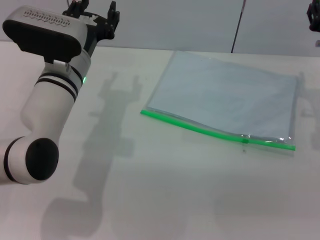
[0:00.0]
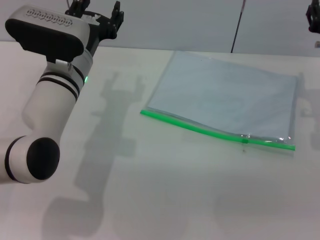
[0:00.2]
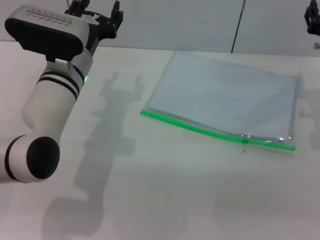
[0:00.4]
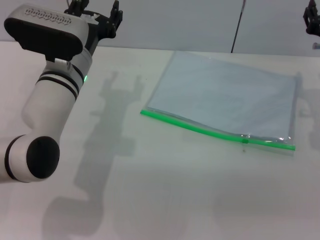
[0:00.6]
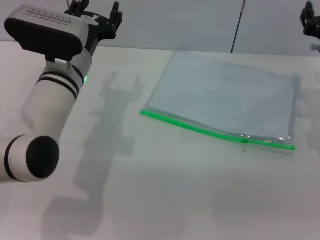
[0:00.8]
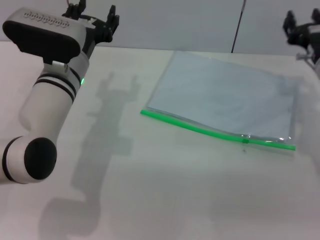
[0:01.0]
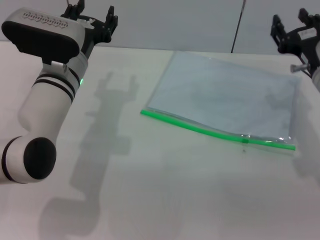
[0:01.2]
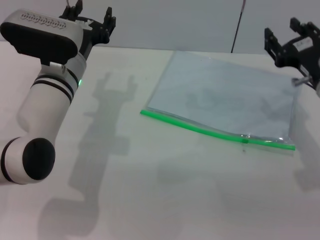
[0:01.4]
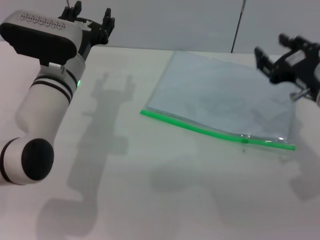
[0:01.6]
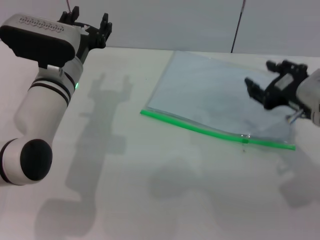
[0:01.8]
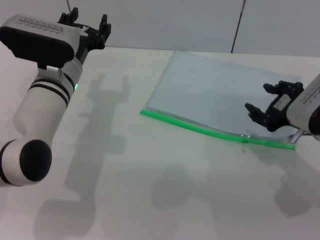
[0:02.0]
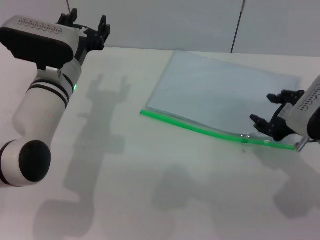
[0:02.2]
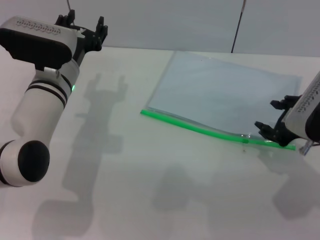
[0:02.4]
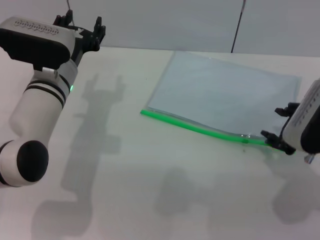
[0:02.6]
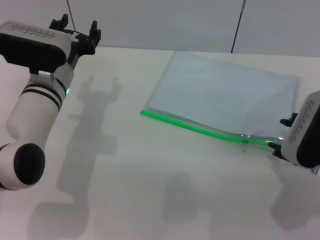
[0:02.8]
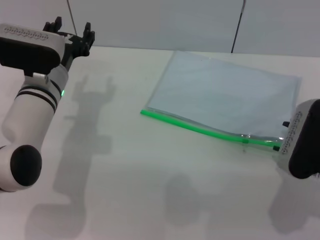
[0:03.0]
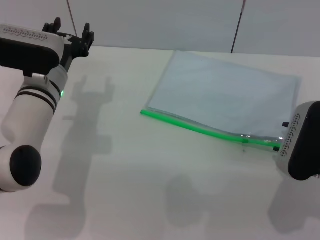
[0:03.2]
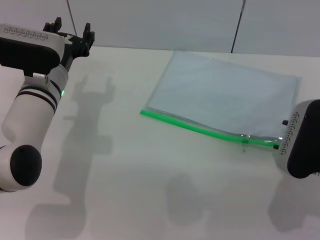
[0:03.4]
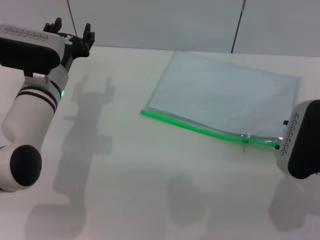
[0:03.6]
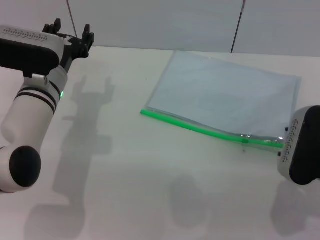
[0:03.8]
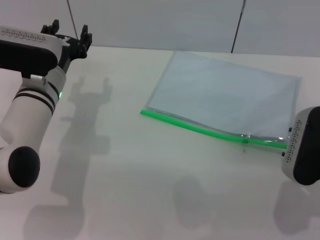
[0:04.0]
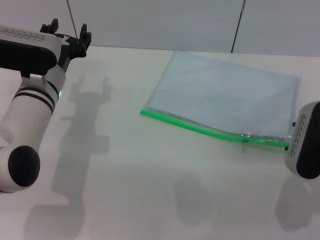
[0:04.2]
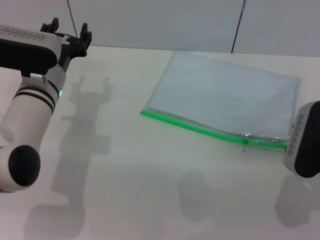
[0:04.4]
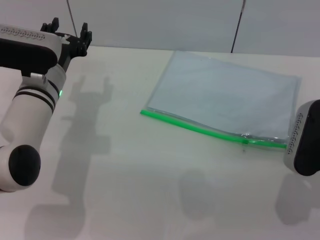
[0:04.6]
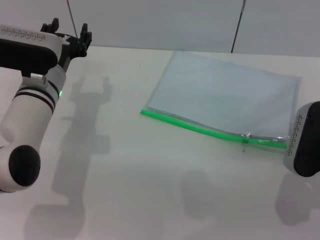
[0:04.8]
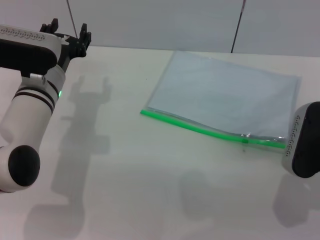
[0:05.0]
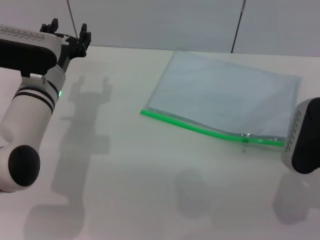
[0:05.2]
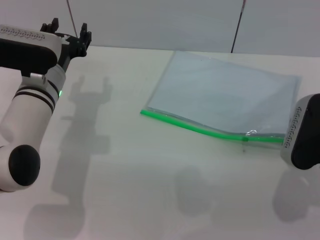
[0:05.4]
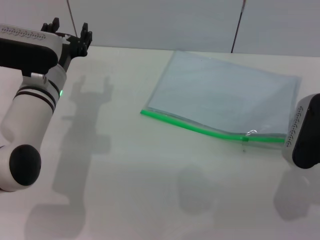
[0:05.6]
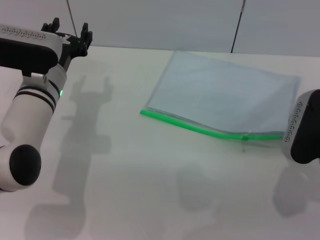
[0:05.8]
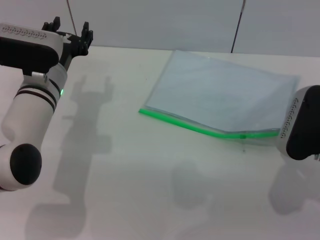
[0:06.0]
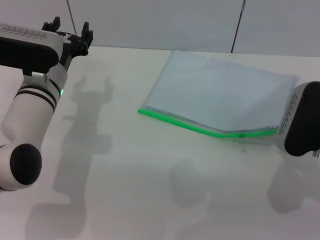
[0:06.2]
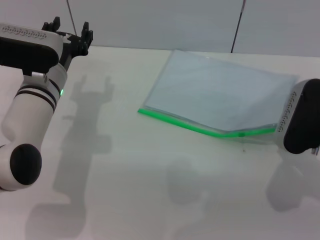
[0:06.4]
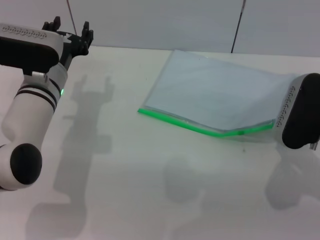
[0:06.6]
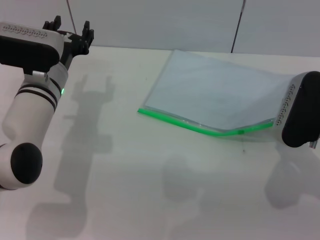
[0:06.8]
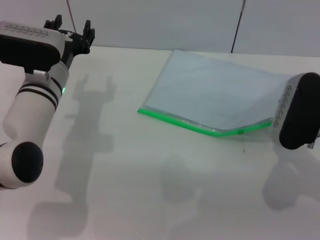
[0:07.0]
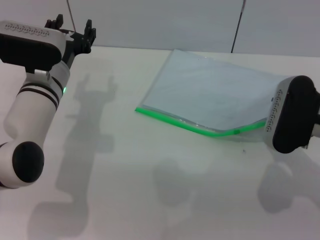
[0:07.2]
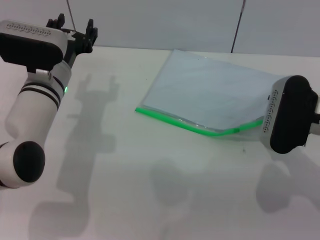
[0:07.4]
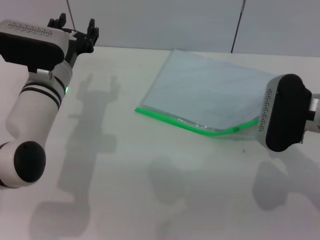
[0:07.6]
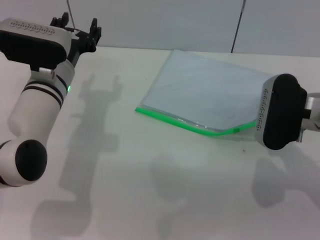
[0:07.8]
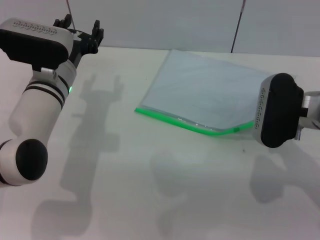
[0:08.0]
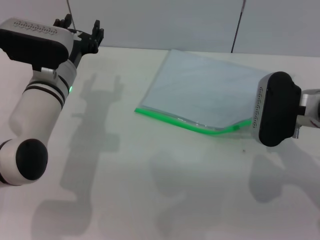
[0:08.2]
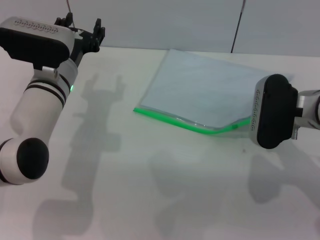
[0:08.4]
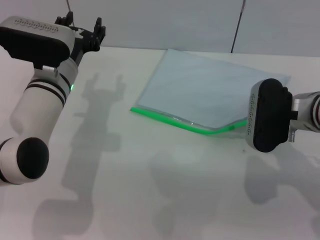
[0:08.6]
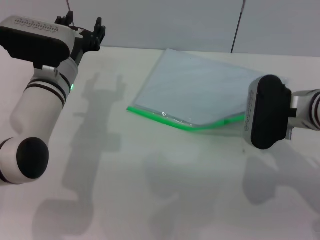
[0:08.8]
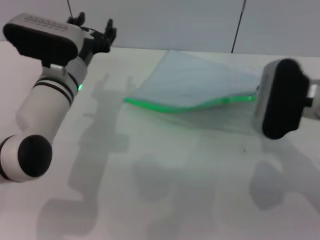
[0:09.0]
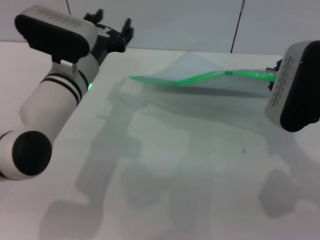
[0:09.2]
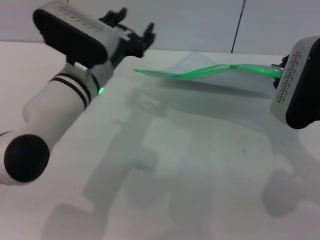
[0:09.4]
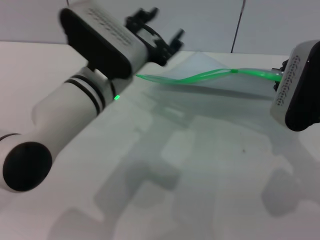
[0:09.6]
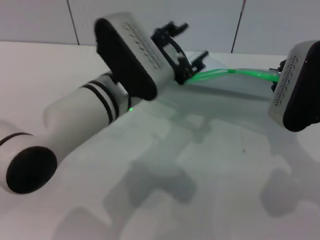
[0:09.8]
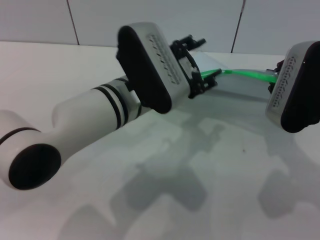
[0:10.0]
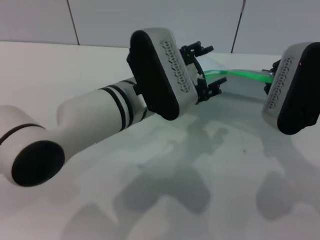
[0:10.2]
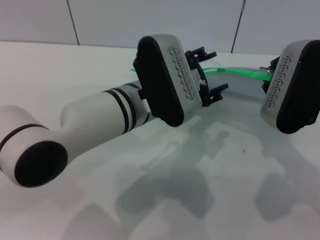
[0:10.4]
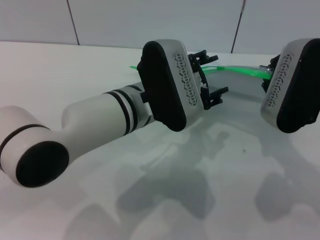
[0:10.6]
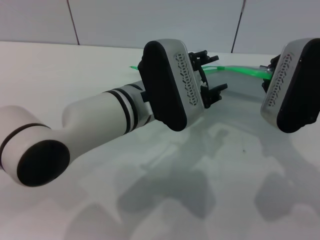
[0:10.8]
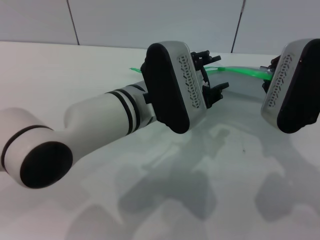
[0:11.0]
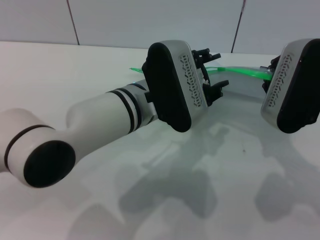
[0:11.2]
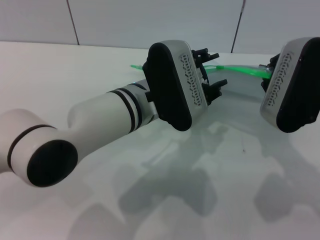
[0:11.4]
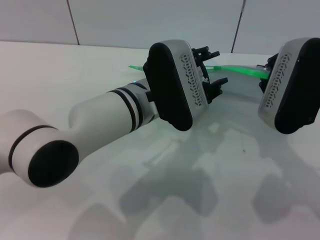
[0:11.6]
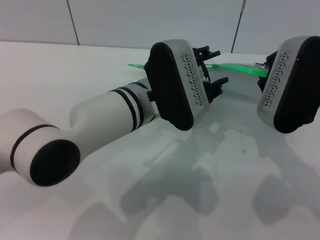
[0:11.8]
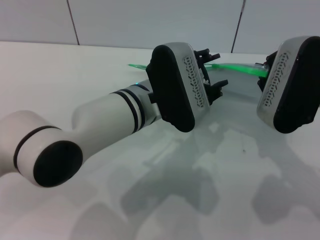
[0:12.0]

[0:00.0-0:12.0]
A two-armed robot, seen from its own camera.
Step, 0:00.0 to 0:09.8: Pick up the transparent plastic bag with the right gripper.
0:00.0 to 0:01.6: The right gripper heads backward, covering some 10 cm.
0:03.0 to 0:07.6: The grippers move only a little.
0:07.6 to 0:09.0: The right gripper closes up.
0:09.0 to 0:10.4: The left gripper shifts some 10 cm to the right and backward.
0:10.4 to 0:12.0: The grippers make only small movements.

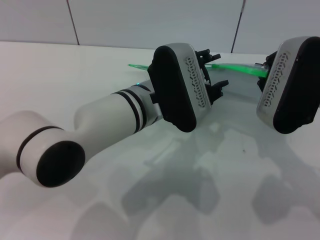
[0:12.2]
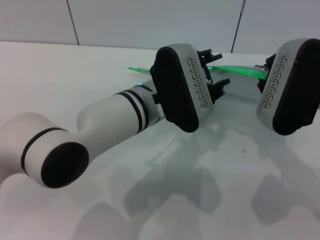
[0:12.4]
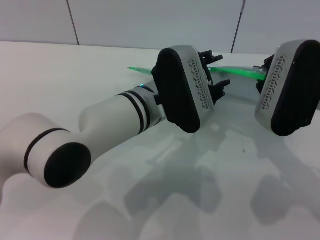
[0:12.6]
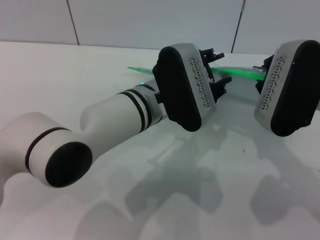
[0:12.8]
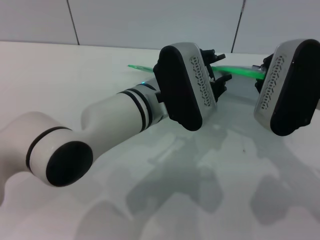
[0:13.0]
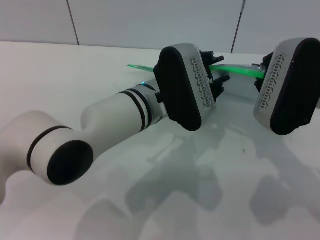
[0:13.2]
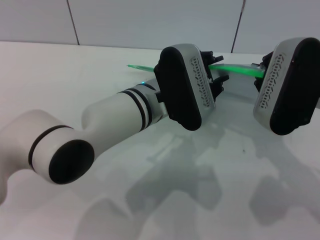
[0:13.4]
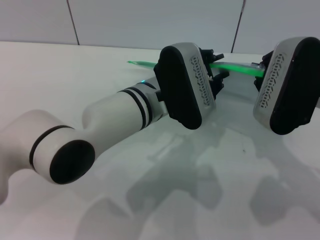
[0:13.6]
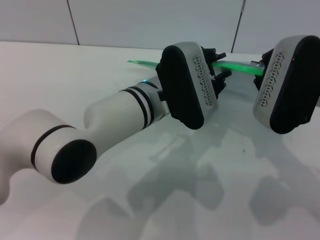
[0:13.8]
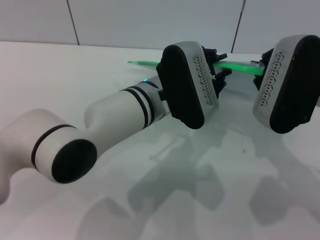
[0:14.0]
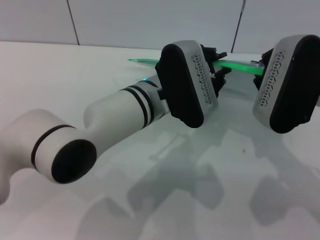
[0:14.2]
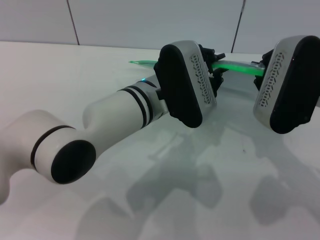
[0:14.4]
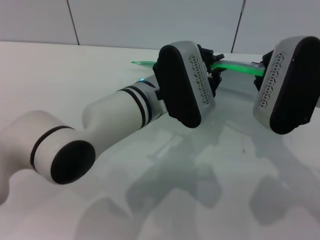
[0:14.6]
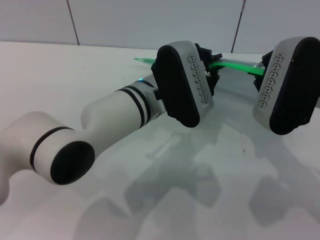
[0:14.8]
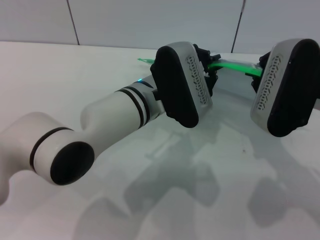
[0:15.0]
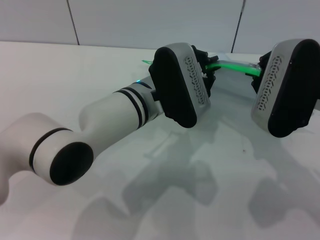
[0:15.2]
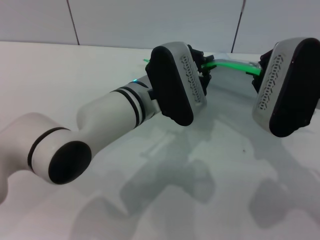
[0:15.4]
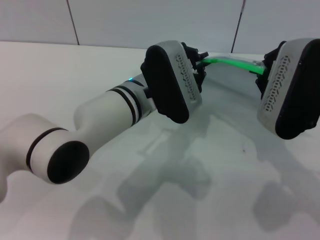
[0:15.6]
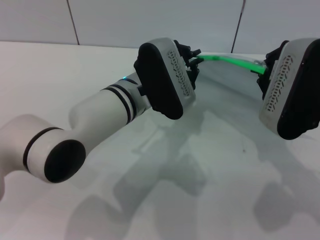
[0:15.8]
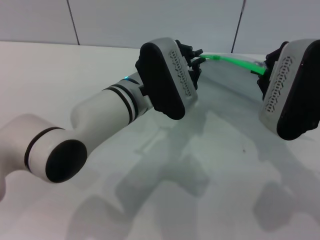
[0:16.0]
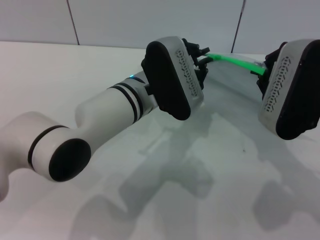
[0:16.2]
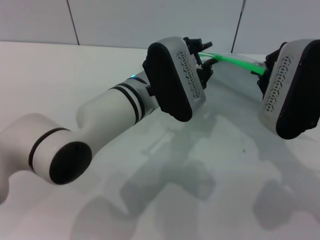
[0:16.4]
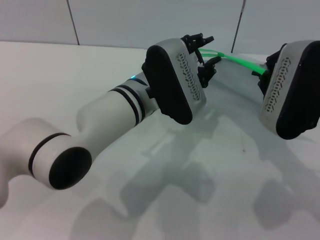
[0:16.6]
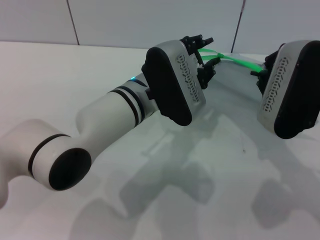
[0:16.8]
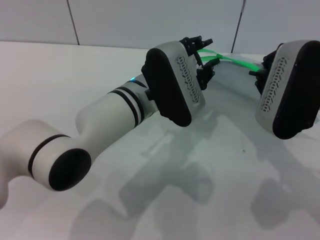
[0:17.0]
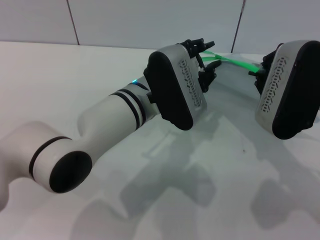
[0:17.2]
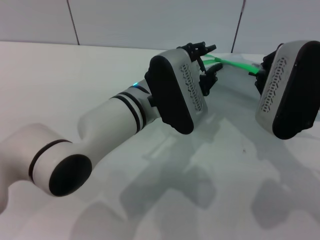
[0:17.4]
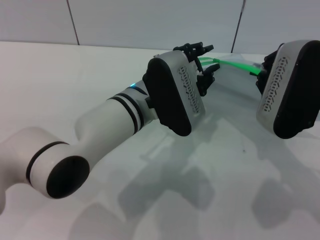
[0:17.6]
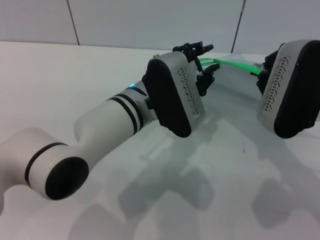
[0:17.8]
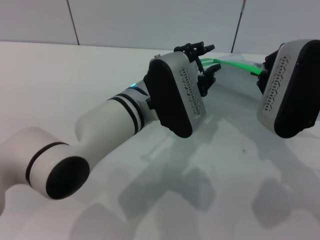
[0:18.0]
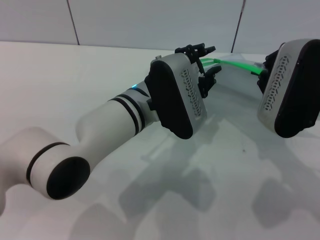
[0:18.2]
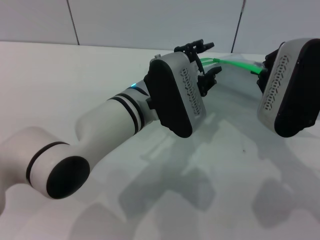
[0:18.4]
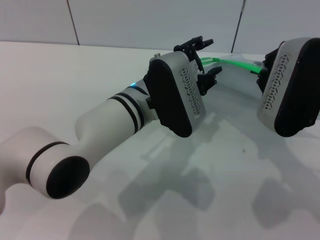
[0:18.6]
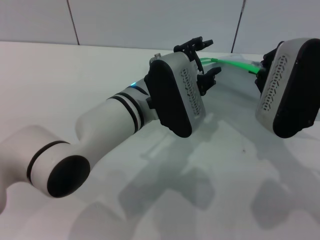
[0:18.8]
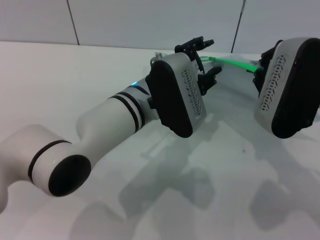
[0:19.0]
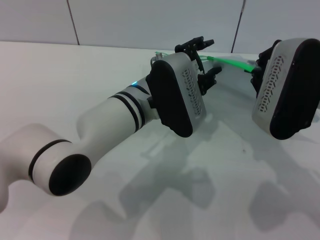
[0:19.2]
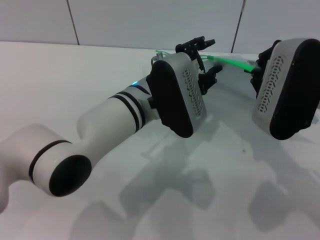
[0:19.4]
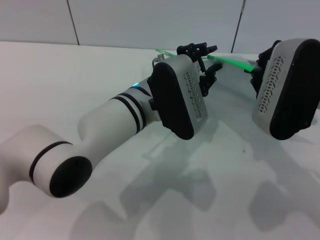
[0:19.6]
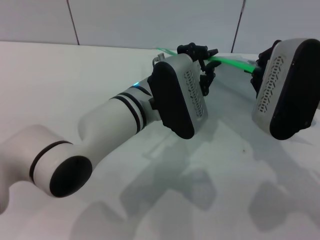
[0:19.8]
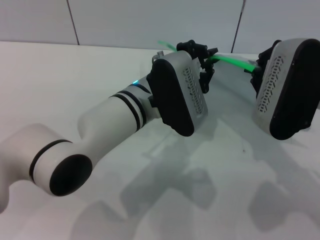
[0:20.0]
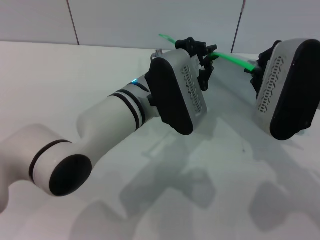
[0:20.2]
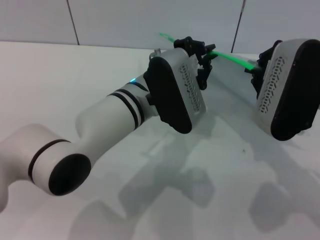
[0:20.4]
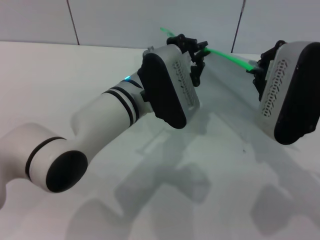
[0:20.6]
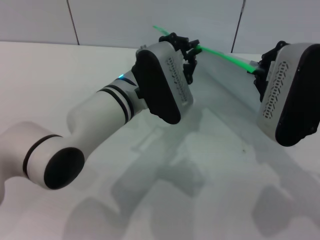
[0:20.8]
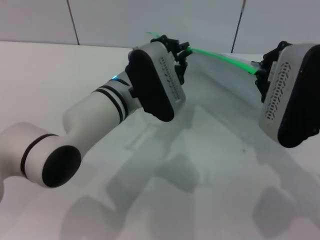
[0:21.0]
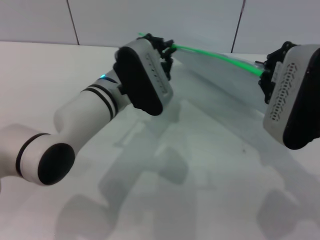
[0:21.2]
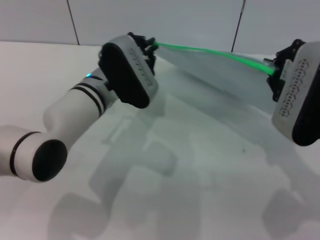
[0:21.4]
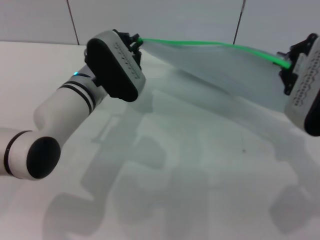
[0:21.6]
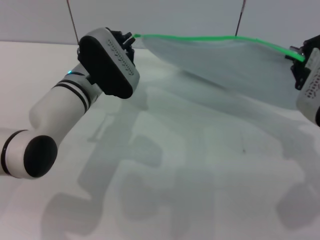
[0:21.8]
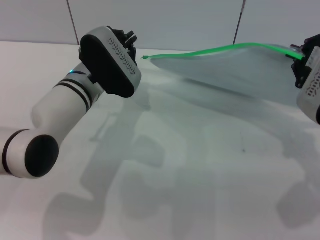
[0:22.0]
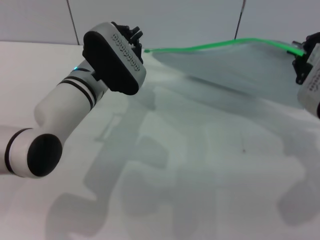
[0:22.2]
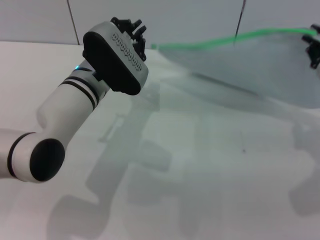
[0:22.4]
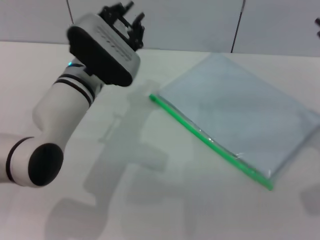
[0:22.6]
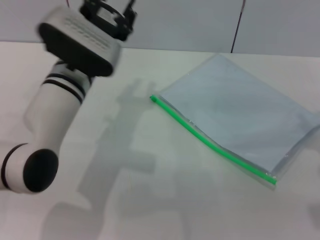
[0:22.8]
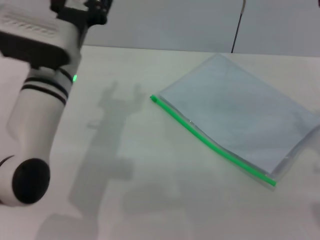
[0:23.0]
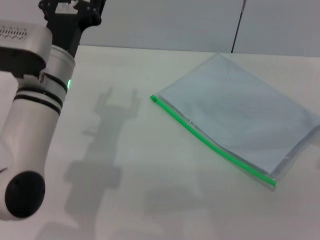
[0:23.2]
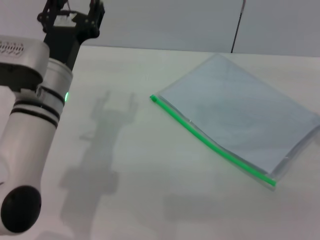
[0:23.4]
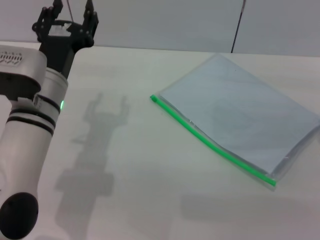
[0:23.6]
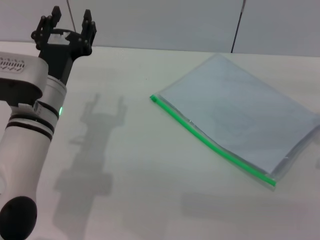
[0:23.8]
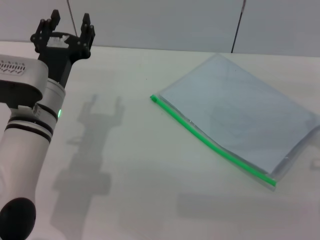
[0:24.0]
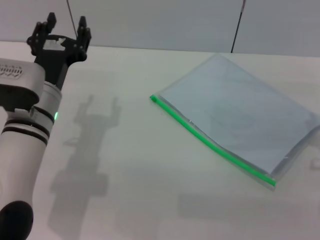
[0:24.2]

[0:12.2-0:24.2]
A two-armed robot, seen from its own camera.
Step, 0:12.2 to 0:21.8: Pulling up the zipper on the transparent plastic bag with the left gripper to close it.
Step, 0:22.0 to 0:22.8: Place the transparent plastic bag.
0:12.2 to 0:13.8: Neither gripper changes place.
0:13.8 to 0:15.2: The left gripper closes its fingers.
0:15.2 to 0:16.6: The left gripper opens up.
0:16.6 to 0:18.2: Neither gripper changes place.
0:18.2 to 0:19.8: Neither gripper changes place.
0:19.8 to 0:21.2: The left gripper changes place by some 5 cm, and closes up.
0:21.2 to 0:22.6: The right gripper goes roughly 5 cm to the right.
0:22.6 to 0:24.2: The right gripper travels downward by some 15 cm, and opens. Meanwhile the left gripper travels backward and to the left by roughly 10 cm, and opens its fingers.
